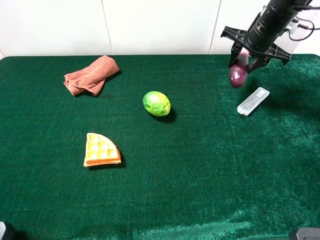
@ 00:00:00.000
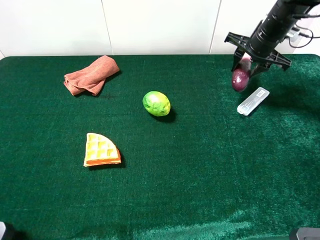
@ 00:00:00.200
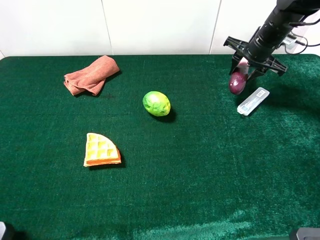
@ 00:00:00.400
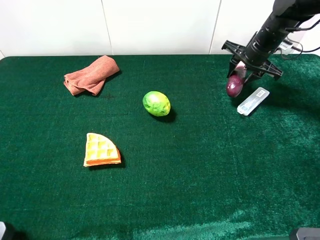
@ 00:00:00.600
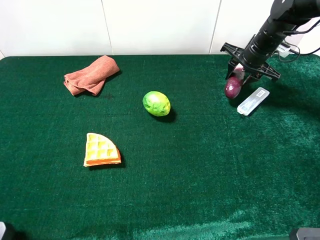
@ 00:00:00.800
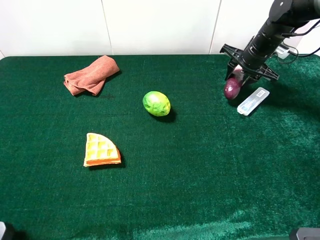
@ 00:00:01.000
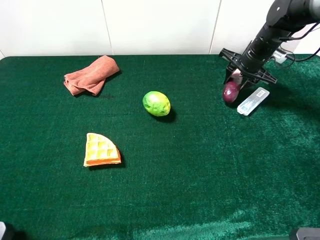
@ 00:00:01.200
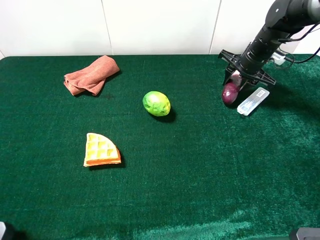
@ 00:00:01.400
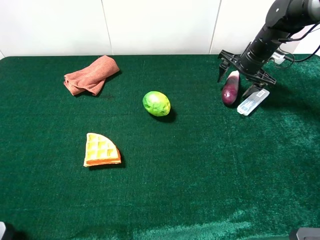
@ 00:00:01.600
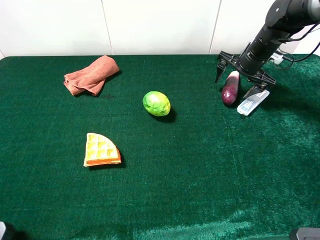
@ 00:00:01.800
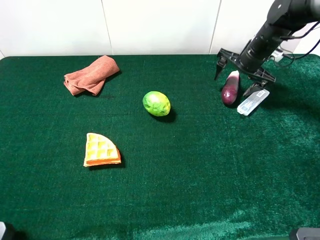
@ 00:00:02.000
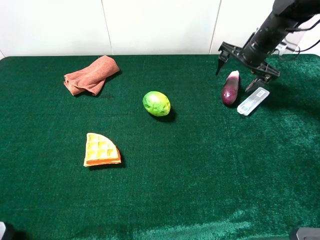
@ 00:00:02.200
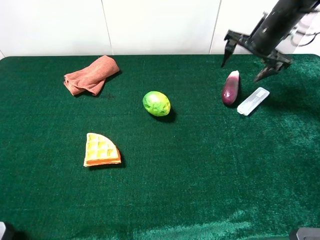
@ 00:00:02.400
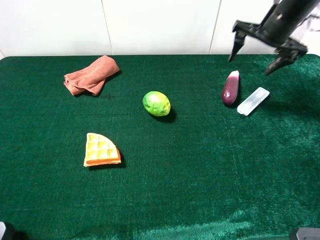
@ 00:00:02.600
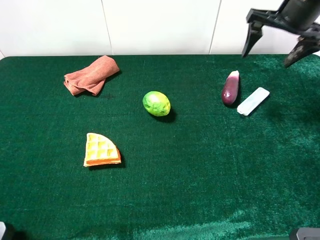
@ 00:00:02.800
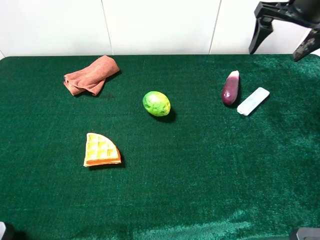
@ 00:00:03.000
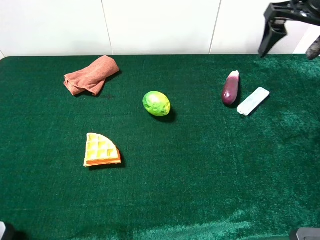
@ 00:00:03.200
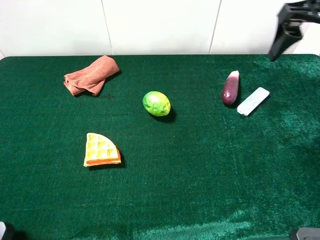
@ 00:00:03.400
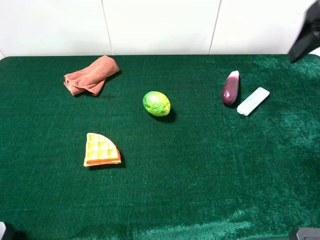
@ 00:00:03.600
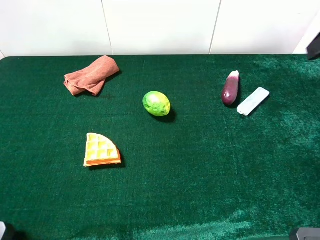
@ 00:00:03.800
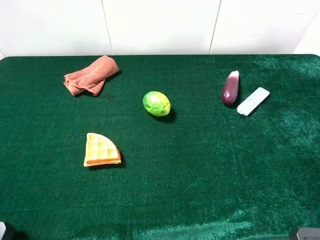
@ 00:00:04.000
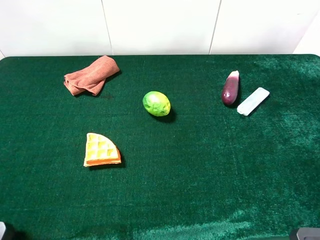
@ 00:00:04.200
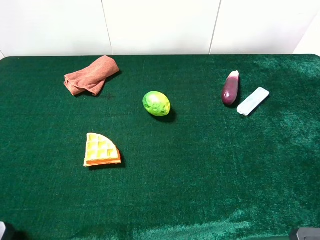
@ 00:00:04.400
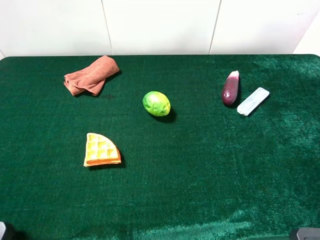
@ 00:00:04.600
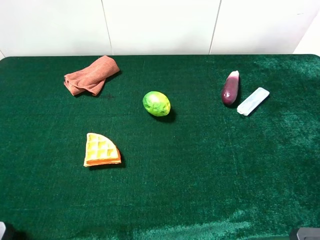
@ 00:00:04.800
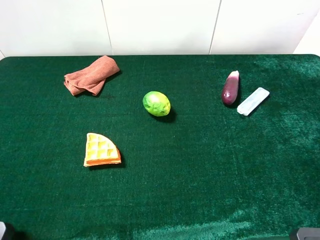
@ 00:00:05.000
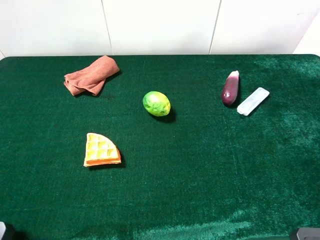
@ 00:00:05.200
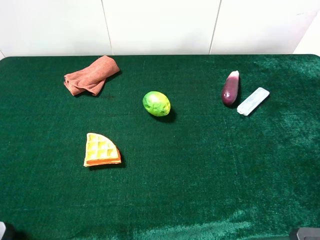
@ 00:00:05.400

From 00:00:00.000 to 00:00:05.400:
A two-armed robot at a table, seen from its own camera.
Task of the whole recording: the gripper move the object.
Step, from 00:00:00.000 to 00:00:02.000: Place the eggplant on the table with the right gripper.
From 00:00:00.000 to 00:00:01.400: The right gripper shifts roughly 10 cm downward.
From 00:00:01.400 to 00:00:02.800: The right gripper goes approximately 15 cm upward and backward, and opens its fingers.
From 00:00:02.800 to 00:00:04.000: The right gripper heads backward and upward, covering about 25 cm.

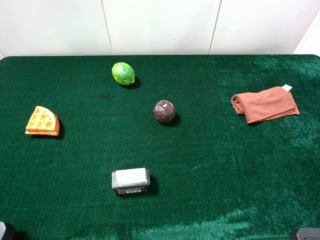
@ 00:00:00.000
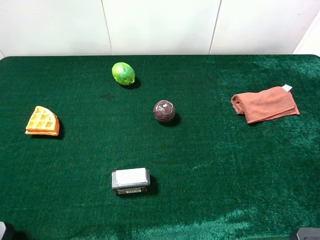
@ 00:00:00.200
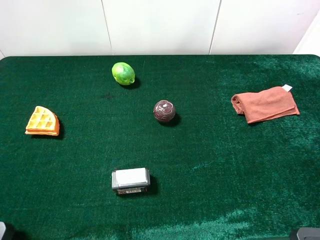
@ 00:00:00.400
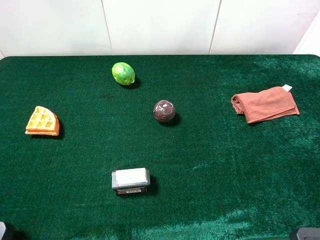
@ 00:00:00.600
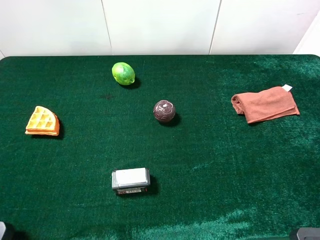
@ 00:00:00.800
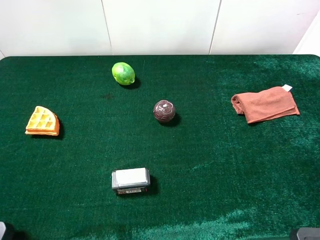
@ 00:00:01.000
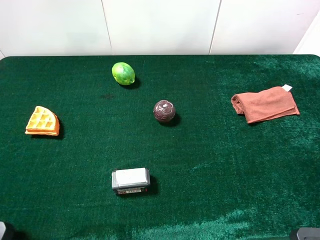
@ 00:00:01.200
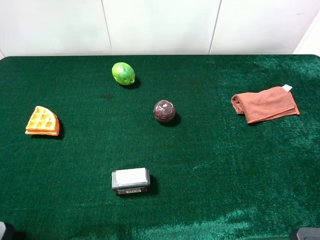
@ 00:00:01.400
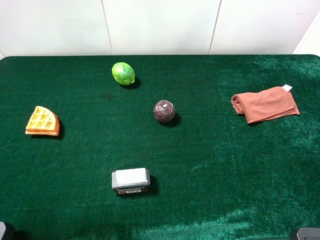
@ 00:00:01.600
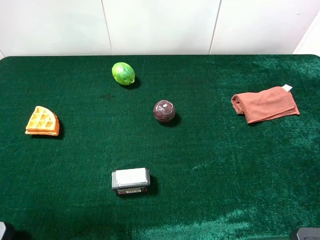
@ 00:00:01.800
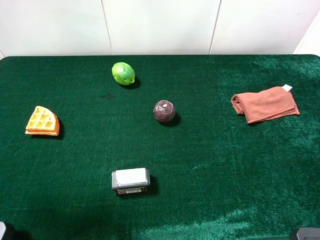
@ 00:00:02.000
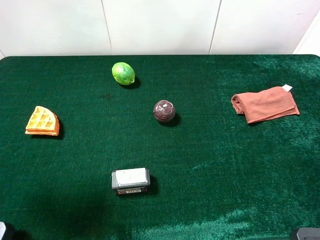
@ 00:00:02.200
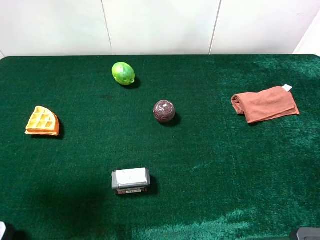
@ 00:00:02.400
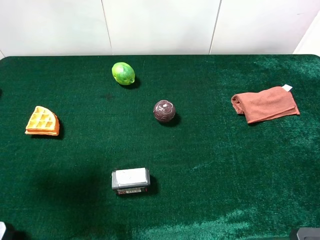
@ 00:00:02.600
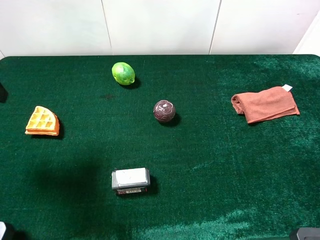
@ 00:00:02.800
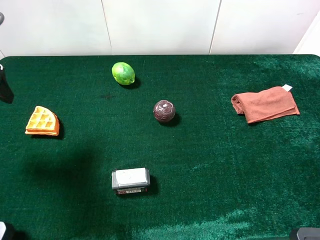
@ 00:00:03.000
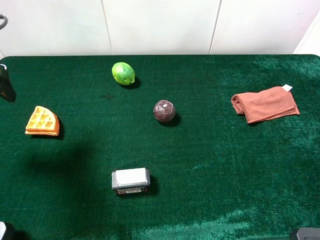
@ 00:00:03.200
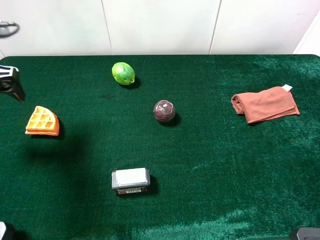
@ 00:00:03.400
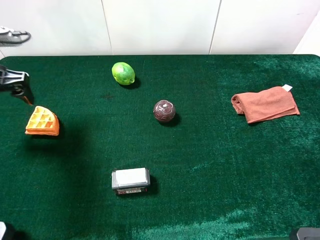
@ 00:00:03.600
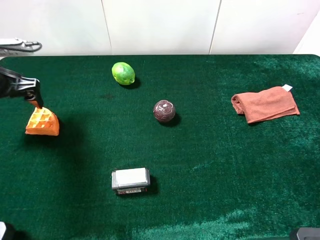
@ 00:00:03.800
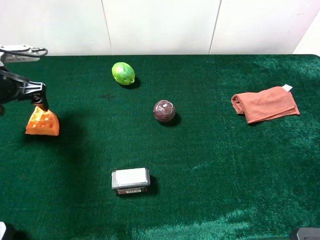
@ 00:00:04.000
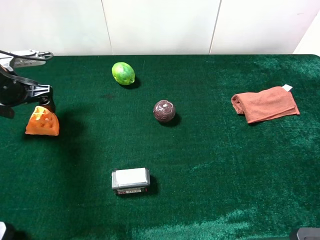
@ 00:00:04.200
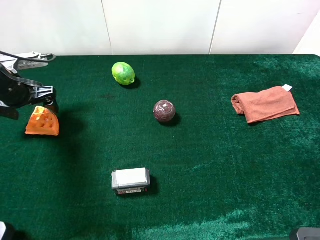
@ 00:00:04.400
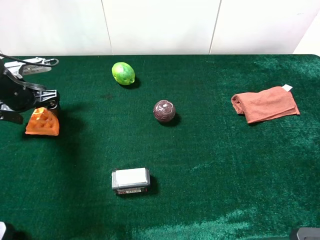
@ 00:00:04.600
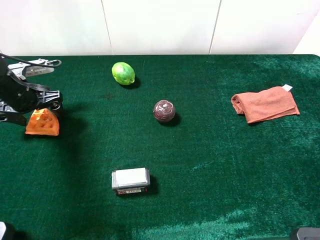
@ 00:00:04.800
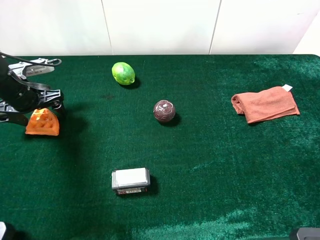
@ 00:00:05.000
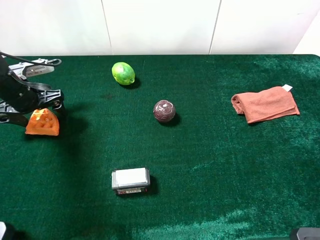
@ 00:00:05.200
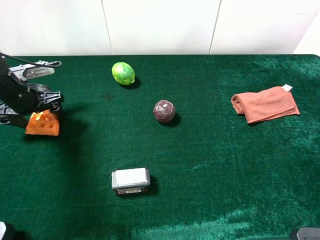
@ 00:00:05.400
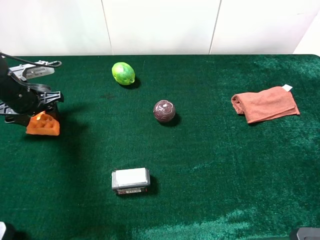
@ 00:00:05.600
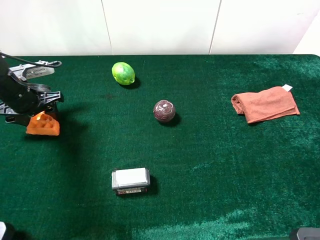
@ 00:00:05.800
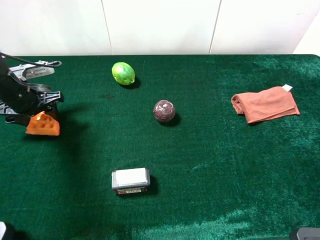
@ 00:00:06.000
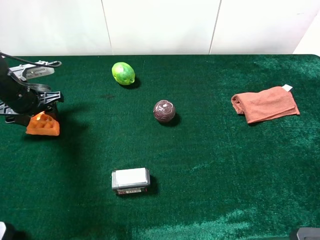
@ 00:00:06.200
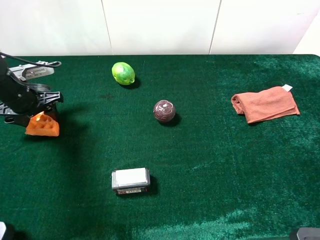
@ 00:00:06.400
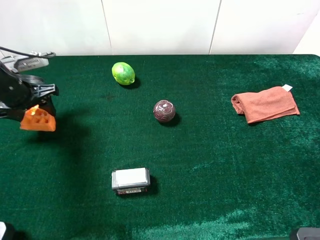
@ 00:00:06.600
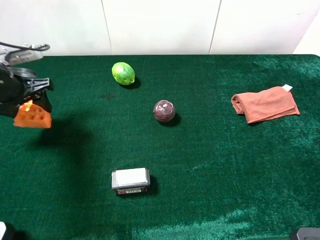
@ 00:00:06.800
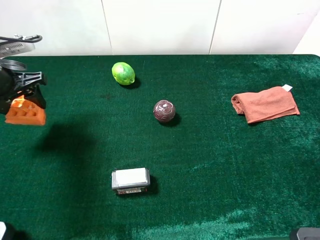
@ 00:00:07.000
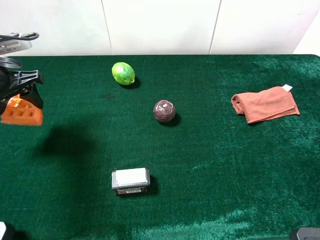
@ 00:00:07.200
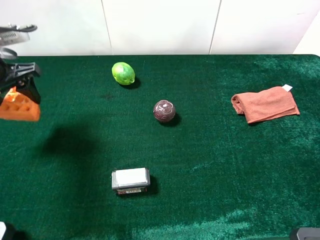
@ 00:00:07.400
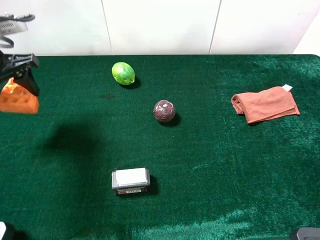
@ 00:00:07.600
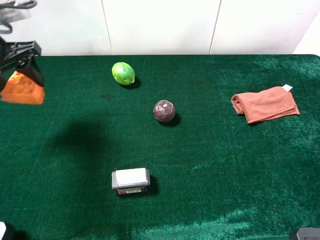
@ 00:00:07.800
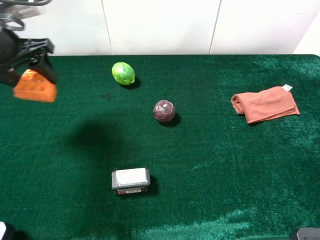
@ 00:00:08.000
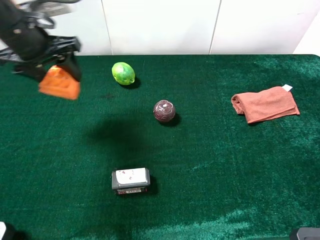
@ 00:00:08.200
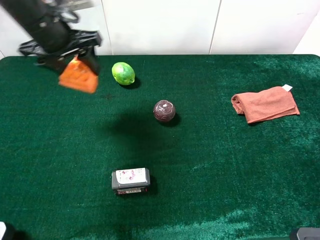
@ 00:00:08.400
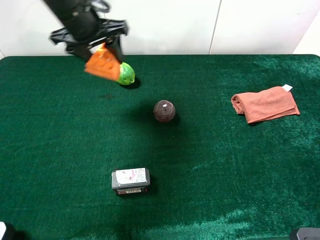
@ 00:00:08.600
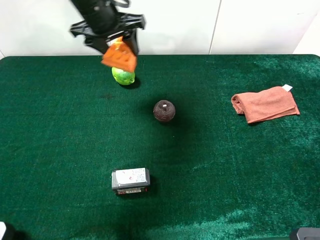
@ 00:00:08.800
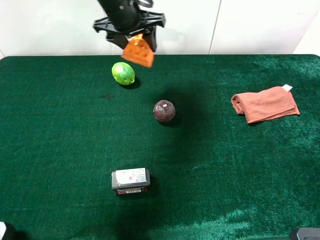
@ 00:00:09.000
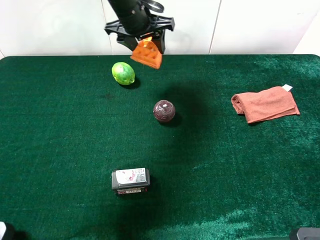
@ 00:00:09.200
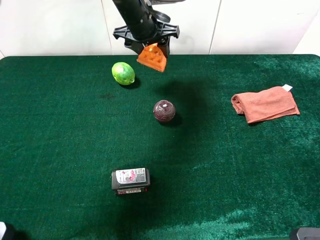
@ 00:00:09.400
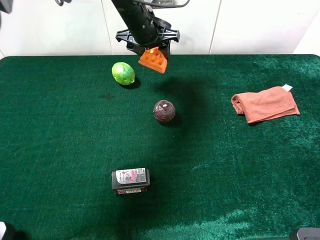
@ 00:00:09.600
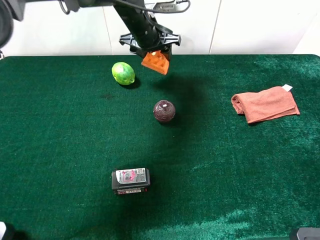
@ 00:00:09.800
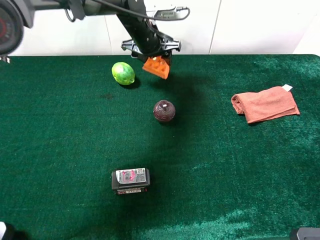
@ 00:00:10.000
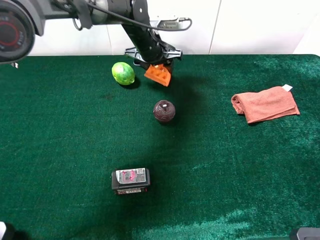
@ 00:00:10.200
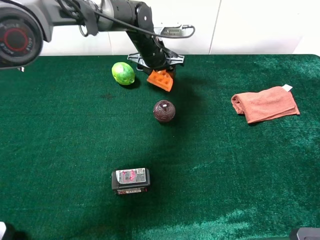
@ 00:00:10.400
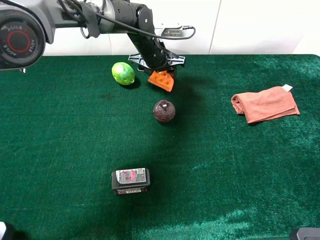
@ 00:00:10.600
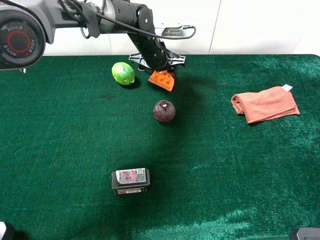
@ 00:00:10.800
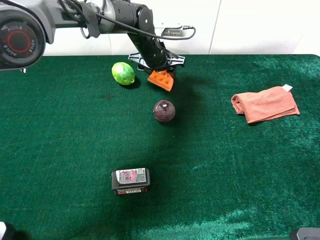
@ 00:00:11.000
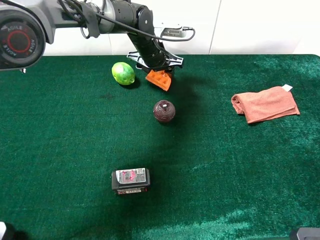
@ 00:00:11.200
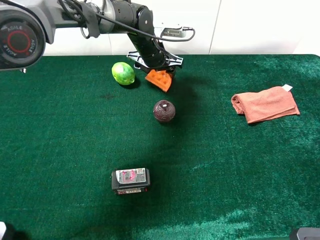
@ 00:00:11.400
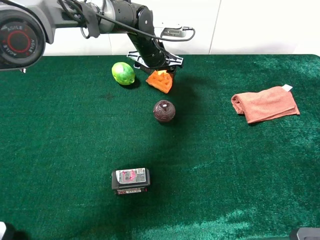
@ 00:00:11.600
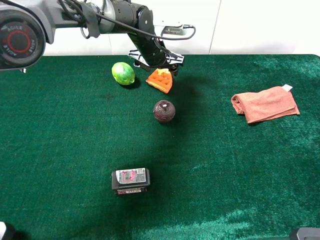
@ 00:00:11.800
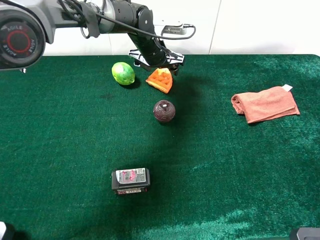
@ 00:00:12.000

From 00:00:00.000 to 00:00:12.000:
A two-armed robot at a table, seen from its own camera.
Task of the whole recording: the gripper move the object.
Step, from 00:00:00.000 to 00:00:06.000: Grasp the wallfe with the left gripper.
From 00:00:01.600 to 00:00:03.000: The left gripper travels forward and downward by some 15 cm.
From 00:00:03.000 to 00:00:04.400: The left gripper travels downward and forward by some 15 cm.
From 00:00:04.400 to 00:00:06.000: The left gripper closes up.
From 00:00:06.000 to 00:00:07.600: The left gripper moves upward, some 10 cm.
From 00:00:07.600 to 00:00:09.000: The left gripper travels to the right and forward by some 25 cm.
From 00:00:09.000 to 00:00:10.400: The left gripper heads downward and to the right, covering approximately 15 cm.
From 00:00:10.400 to 00:00:12.000: The left gripper opens up.

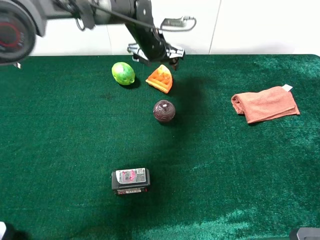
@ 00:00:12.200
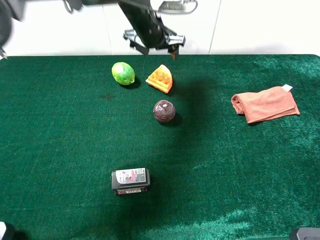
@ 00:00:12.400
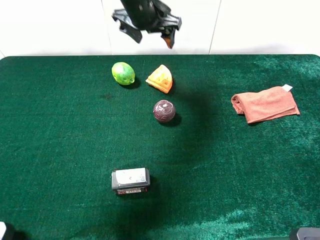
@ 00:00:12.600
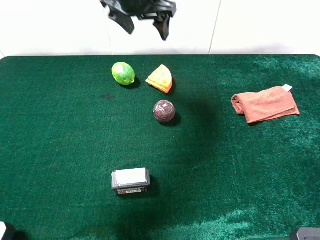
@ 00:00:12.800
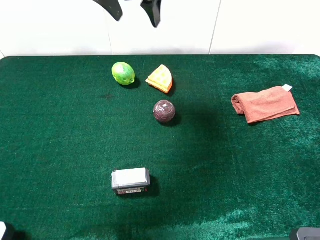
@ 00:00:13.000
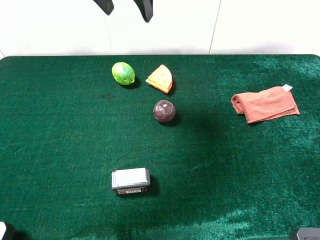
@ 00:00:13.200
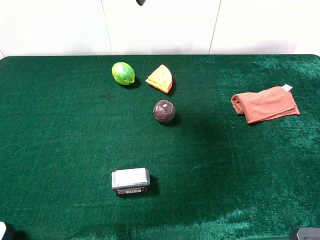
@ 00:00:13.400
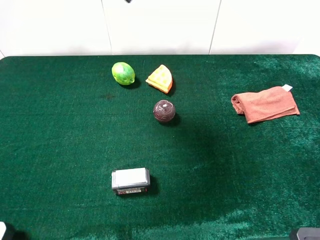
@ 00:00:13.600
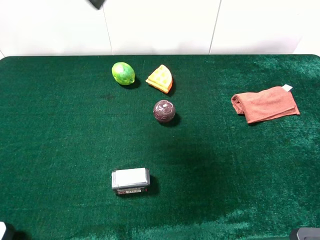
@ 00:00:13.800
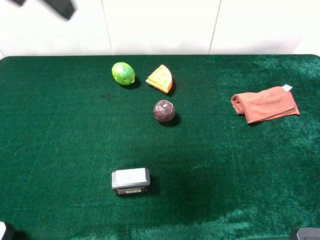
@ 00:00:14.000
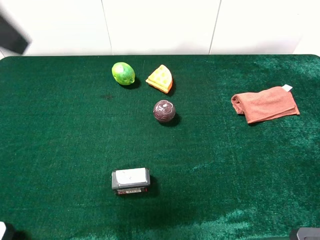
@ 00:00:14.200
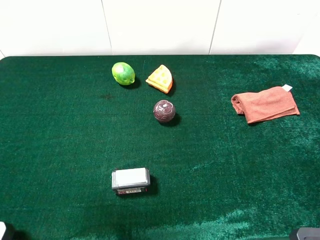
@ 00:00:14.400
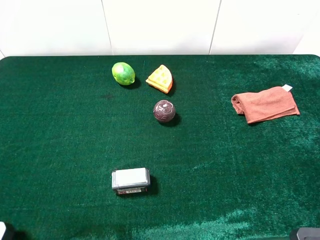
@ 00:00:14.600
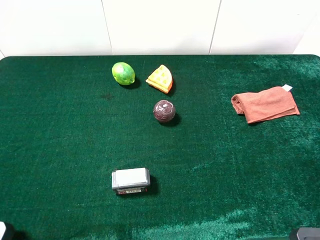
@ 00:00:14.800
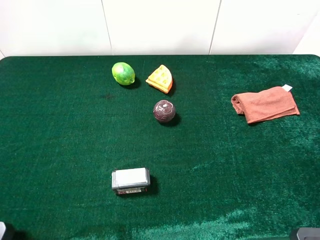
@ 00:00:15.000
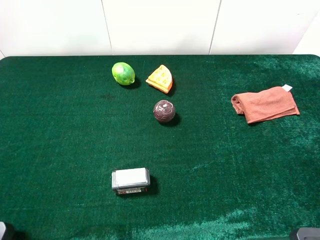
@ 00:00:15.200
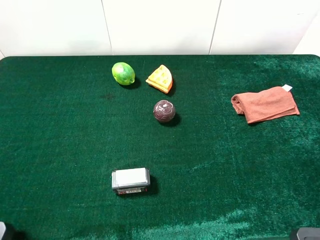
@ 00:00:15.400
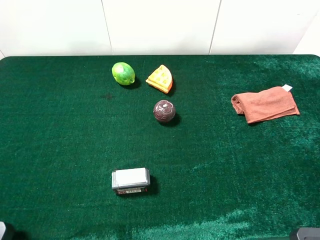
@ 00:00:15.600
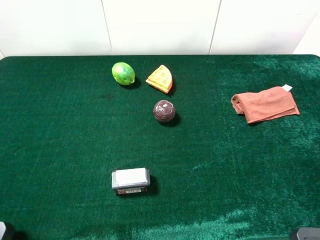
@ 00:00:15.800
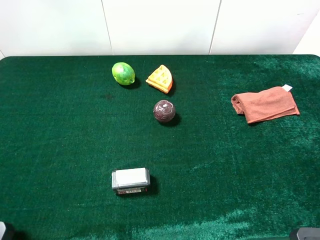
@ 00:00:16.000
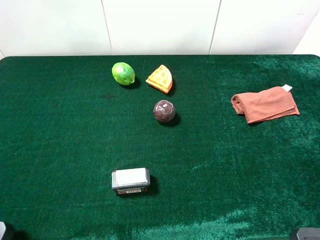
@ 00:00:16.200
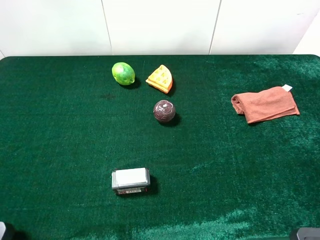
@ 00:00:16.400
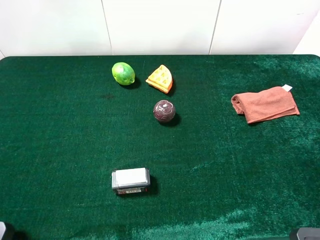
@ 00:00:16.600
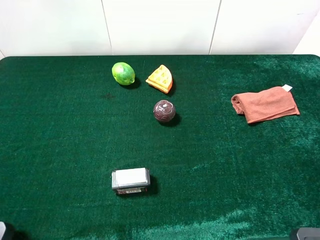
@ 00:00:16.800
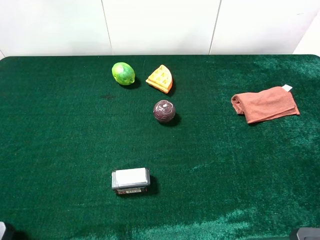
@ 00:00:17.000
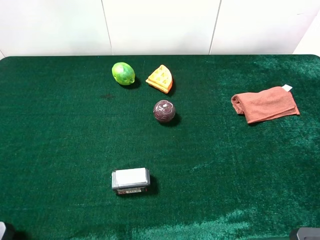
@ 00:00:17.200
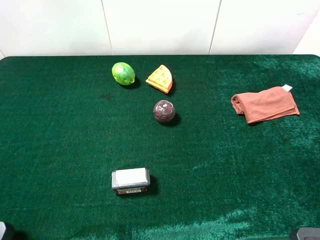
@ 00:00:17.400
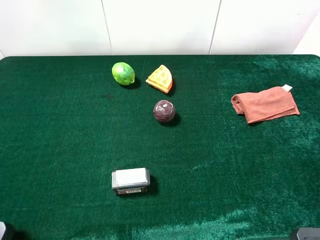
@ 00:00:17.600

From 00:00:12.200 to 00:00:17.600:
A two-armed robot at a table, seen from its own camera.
Task of the whole recording: the gripper move the object.
From 00:00:12.200 to 00:00:13.600: The left gripper goes approximately 30 cm upward and backward.
From 00:00:13.600 to 00:00:15.000: The left gripper travels backward and to the left by approximately 35 cm, and opens up.
From 00:00:16.200 to 00:00:17.600: Both grippers stay put.
